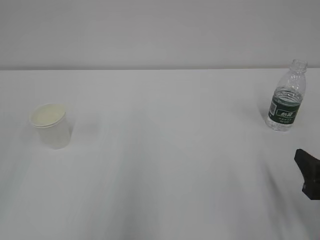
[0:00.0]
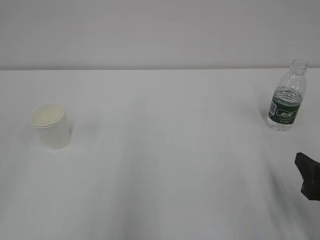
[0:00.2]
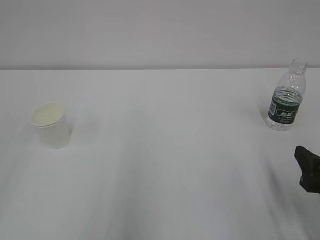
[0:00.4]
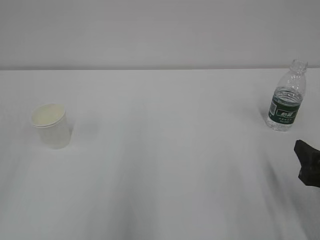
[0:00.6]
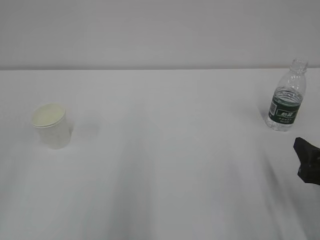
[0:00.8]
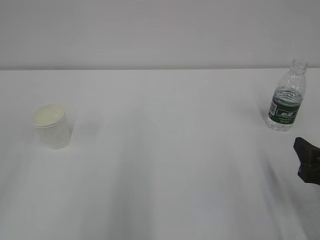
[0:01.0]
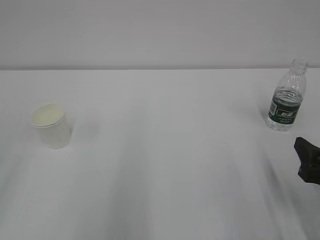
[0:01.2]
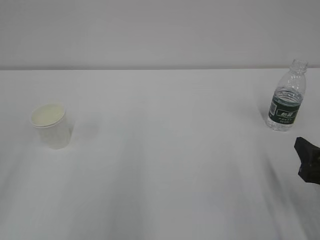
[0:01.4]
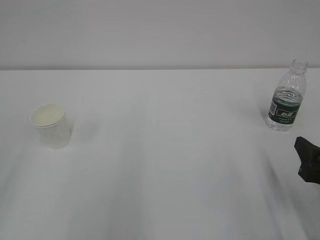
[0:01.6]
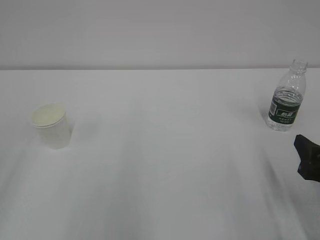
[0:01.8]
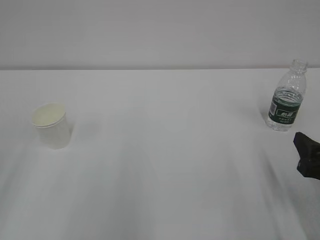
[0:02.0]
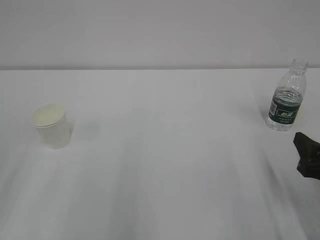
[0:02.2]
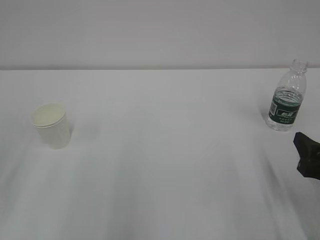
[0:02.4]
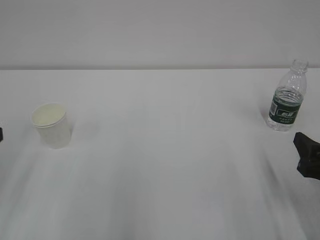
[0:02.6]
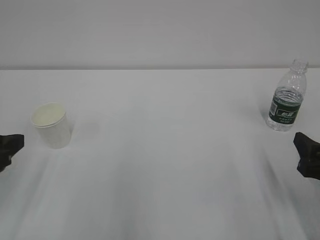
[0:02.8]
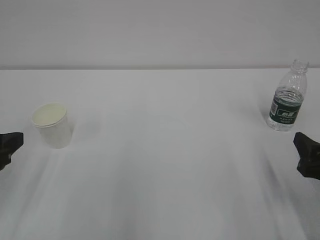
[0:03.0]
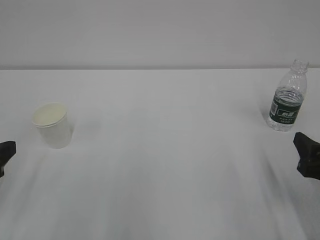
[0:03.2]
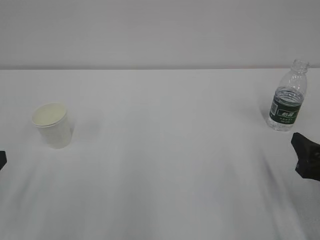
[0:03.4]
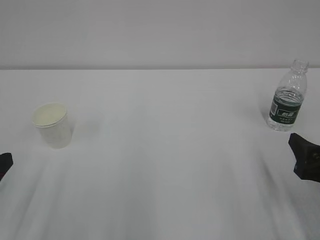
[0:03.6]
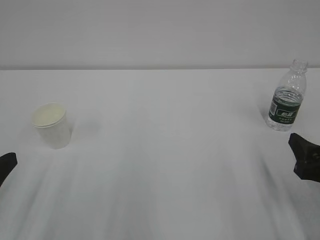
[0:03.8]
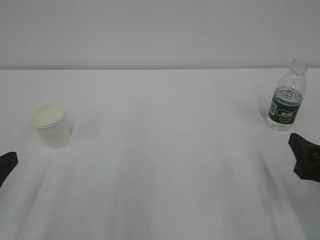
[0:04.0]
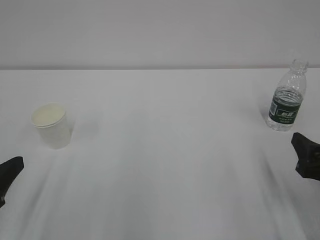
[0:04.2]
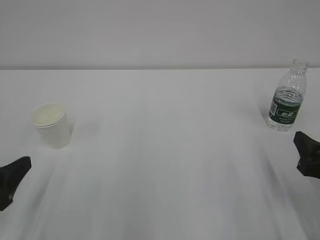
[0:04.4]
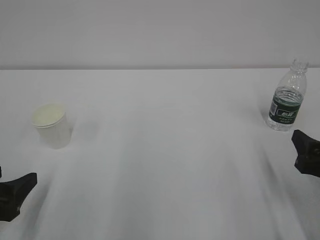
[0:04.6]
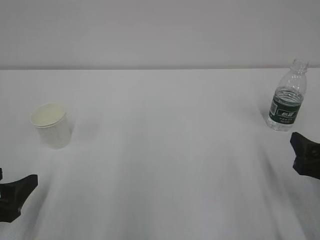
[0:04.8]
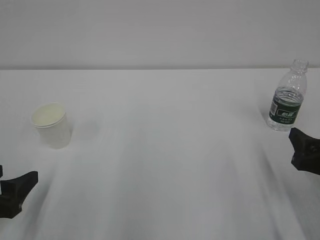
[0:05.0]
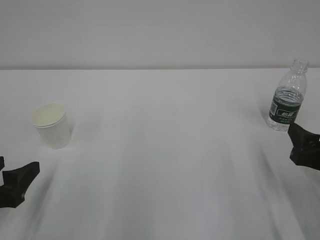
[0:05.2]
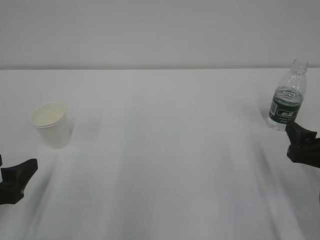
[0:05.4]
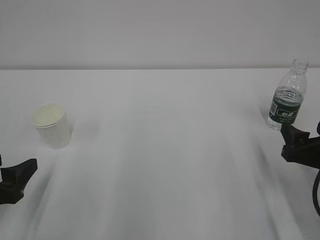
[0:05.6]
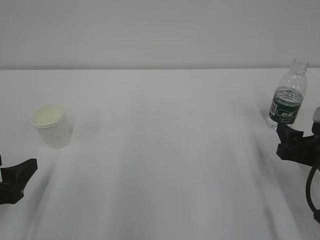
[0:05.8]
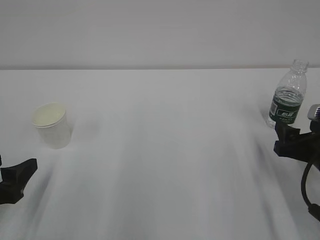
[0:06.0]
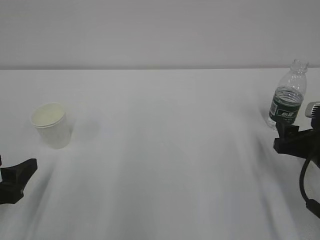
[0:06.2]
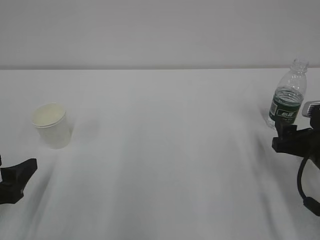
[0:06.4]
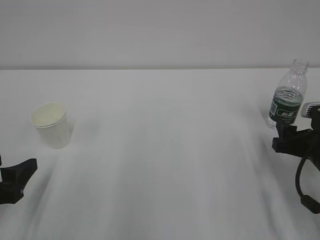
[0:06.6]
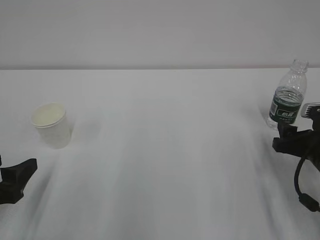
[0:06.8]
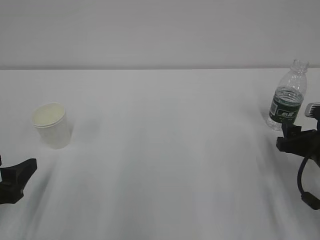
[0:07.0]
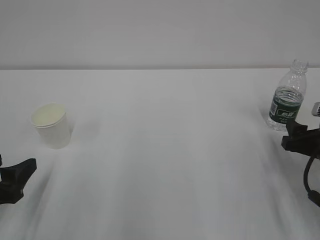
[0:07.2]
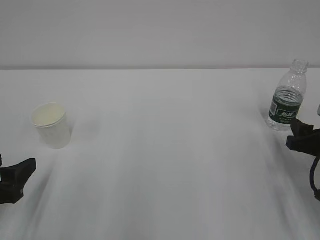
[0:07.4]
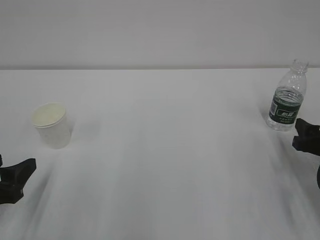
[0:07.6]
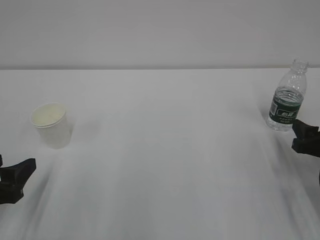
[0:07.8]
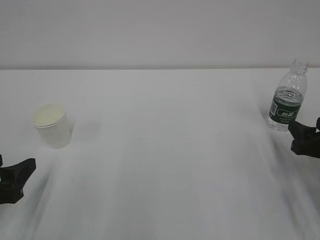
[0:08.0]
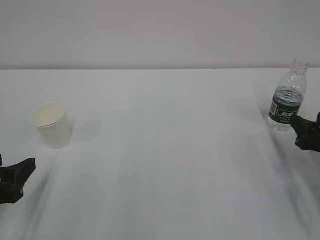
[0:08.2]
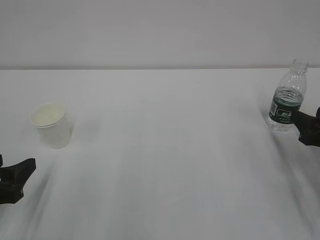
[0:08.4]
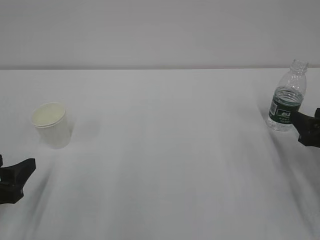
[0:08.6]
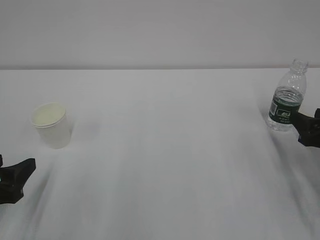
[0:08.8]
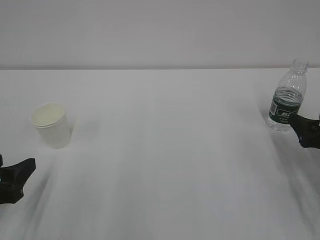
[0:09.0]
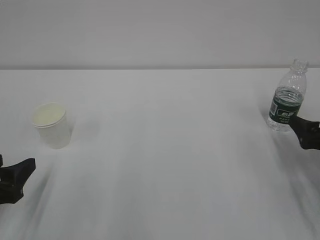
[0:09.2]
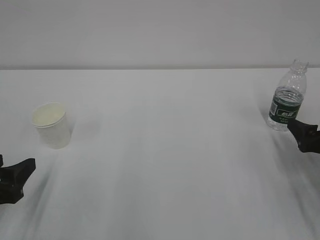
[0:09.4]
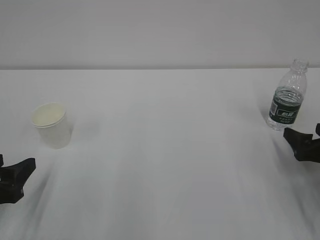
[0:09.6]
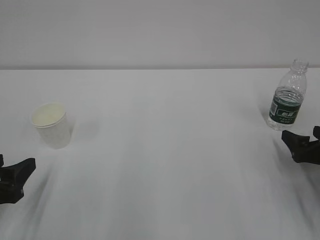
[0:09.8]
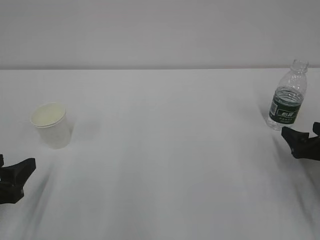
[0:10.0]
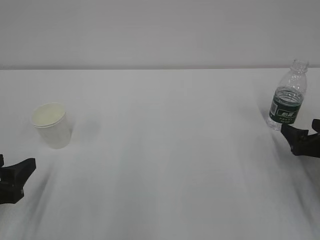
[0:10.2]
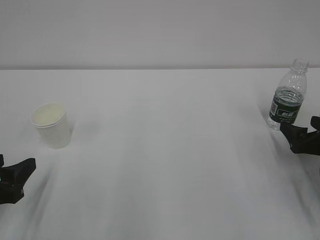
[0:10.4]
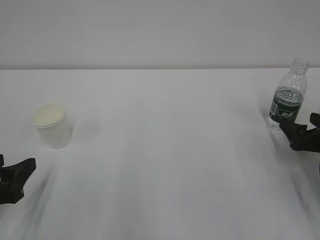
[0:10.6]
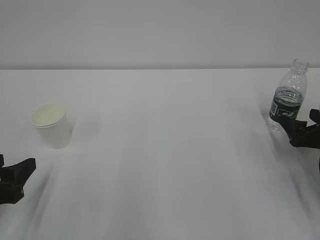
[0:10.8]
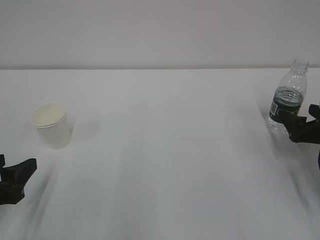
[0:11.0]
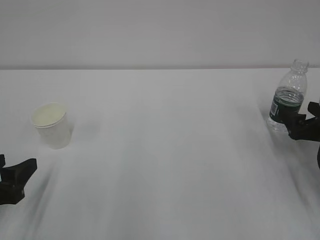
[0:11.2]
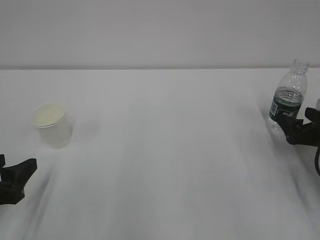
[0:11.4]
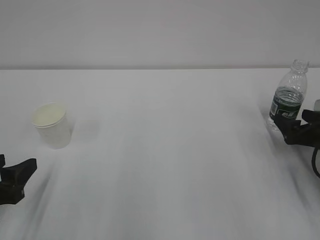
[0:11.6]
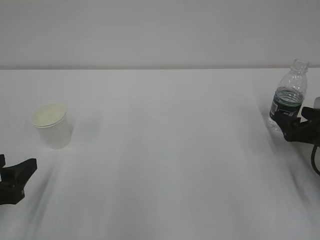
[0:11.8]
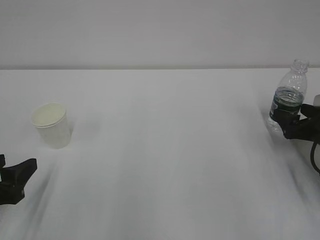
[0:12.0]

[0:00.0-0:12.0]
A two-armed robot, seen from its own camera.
0:01.6 to 0:03.0: The left gripper goes approximately 10 cm forward and downward.
0:03.0 to 0:04.4: The left gripper is displaced downward by some 5 cm.
0:04.4 to 0:06.0: The right gripper moves forward, roughly 5 cm.
0:06.0 to 0:07.6: The right gripper changes place by roughly 5 cm.
0:07.6 to 0:09.0: The right gripper opens.
0:09.0 to 0:10.4: The grippers move only a little.
0:10.4 to 0:12.0: The grippers move only a little.

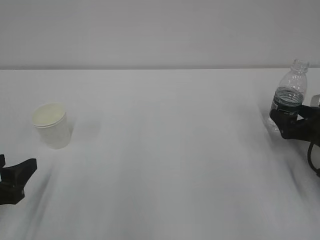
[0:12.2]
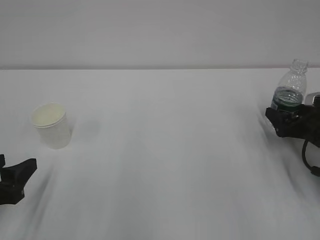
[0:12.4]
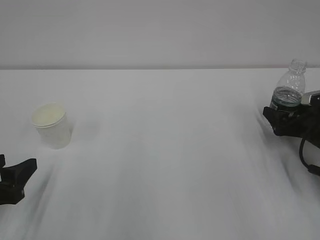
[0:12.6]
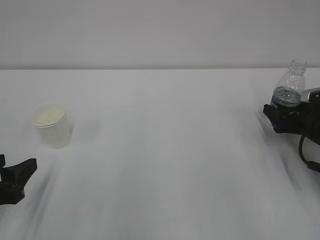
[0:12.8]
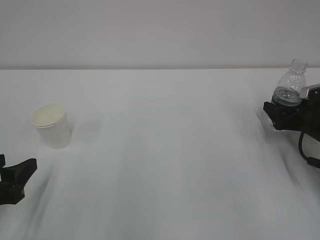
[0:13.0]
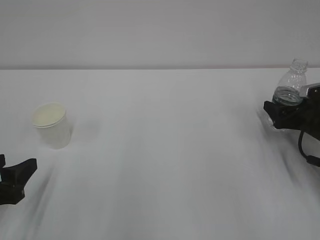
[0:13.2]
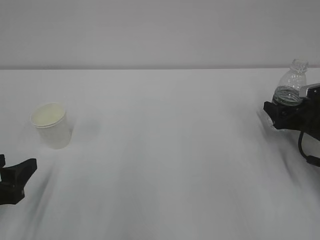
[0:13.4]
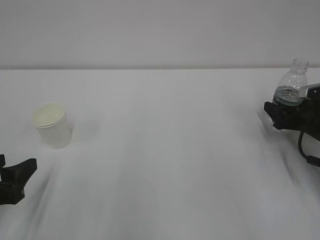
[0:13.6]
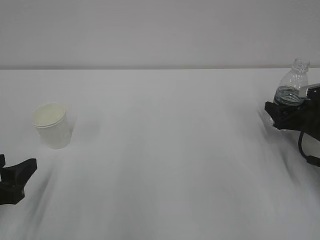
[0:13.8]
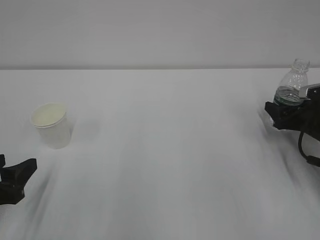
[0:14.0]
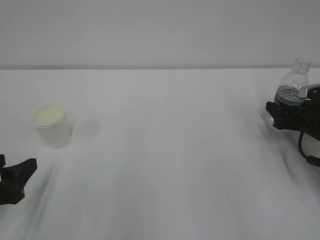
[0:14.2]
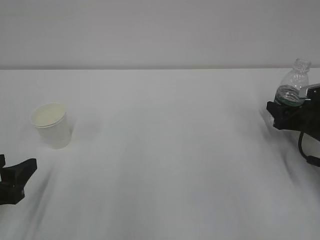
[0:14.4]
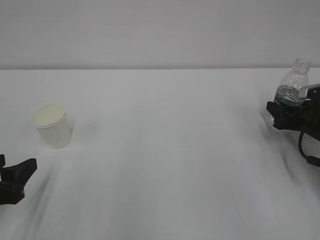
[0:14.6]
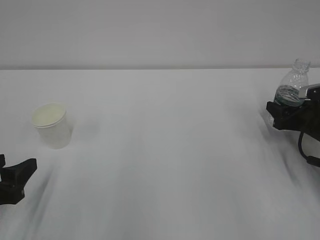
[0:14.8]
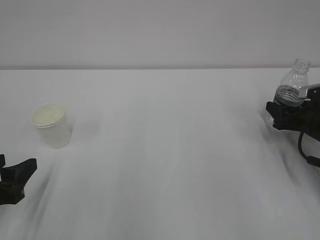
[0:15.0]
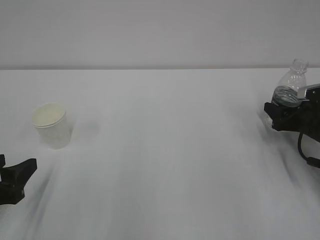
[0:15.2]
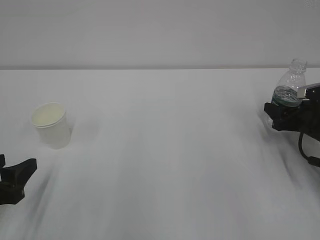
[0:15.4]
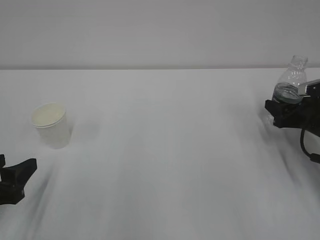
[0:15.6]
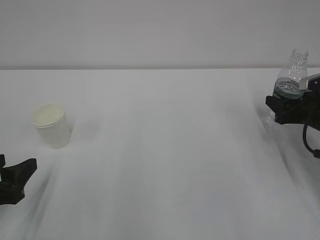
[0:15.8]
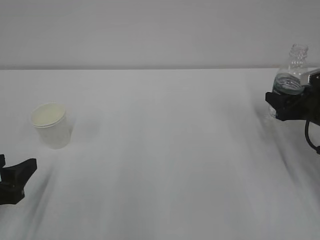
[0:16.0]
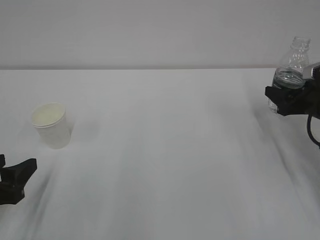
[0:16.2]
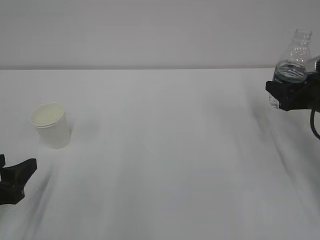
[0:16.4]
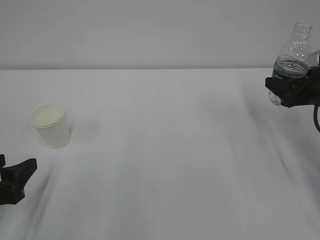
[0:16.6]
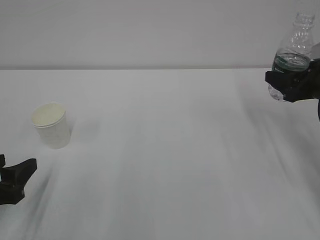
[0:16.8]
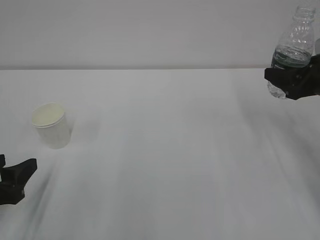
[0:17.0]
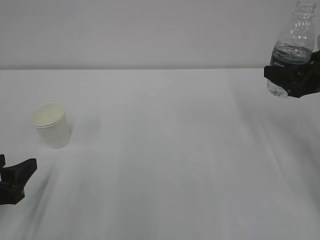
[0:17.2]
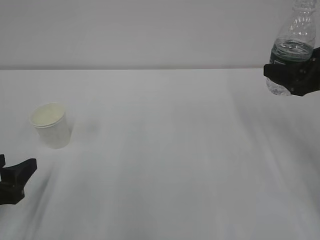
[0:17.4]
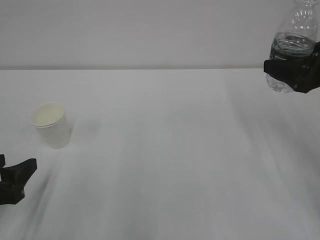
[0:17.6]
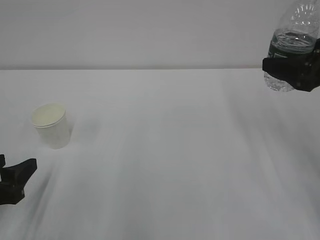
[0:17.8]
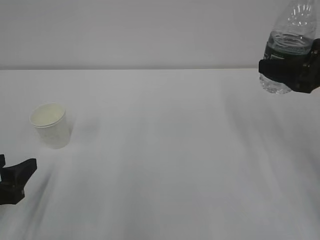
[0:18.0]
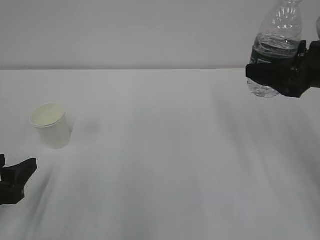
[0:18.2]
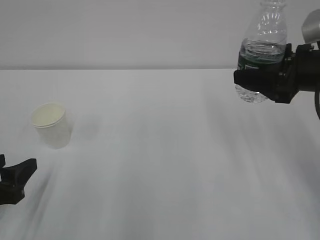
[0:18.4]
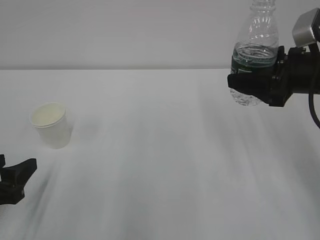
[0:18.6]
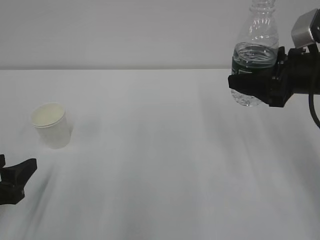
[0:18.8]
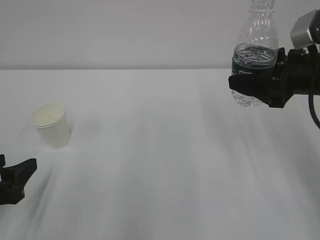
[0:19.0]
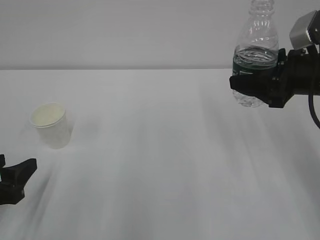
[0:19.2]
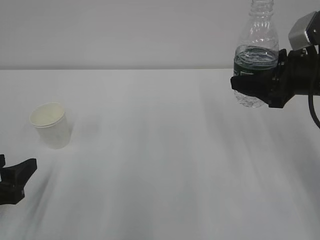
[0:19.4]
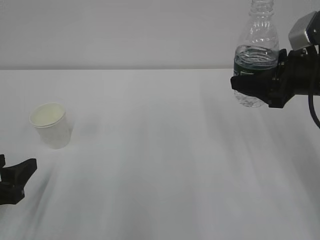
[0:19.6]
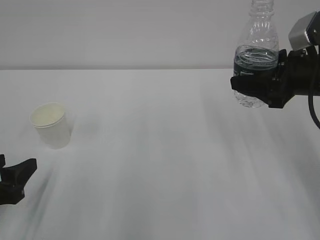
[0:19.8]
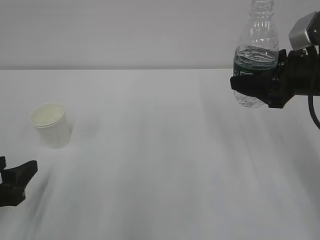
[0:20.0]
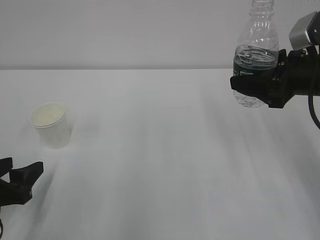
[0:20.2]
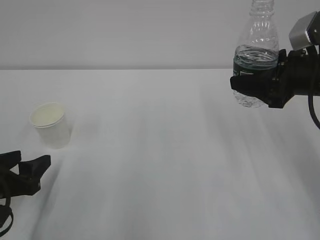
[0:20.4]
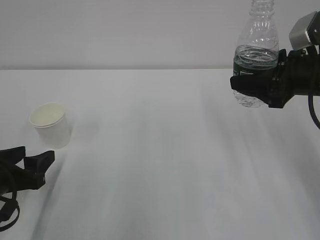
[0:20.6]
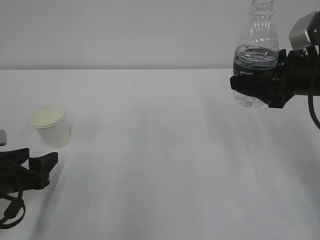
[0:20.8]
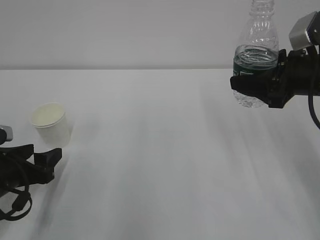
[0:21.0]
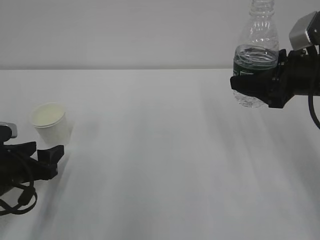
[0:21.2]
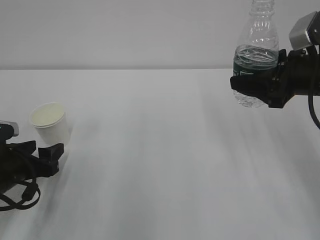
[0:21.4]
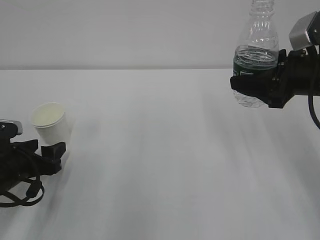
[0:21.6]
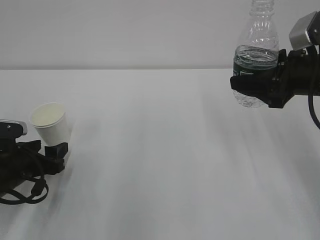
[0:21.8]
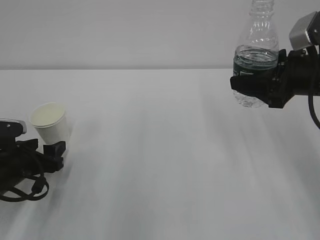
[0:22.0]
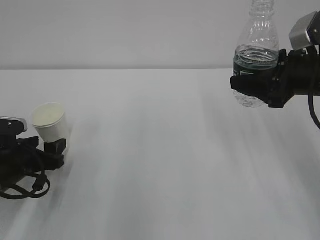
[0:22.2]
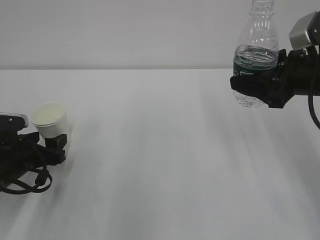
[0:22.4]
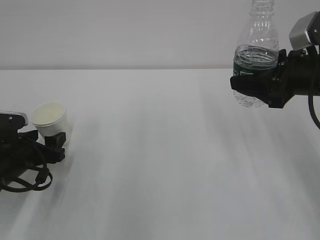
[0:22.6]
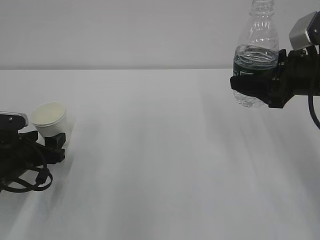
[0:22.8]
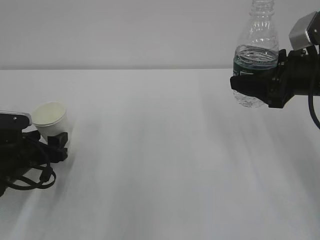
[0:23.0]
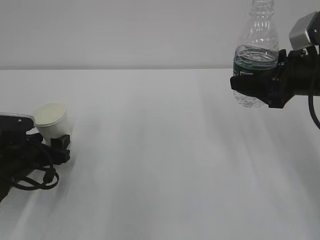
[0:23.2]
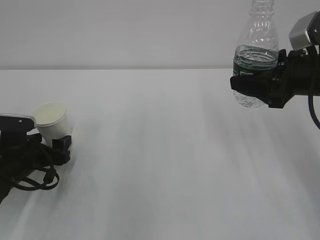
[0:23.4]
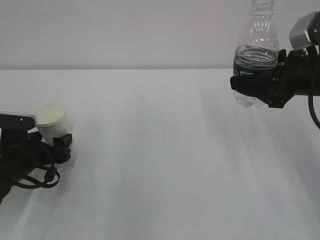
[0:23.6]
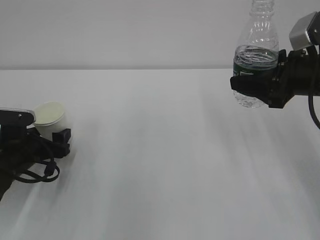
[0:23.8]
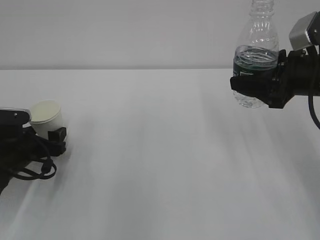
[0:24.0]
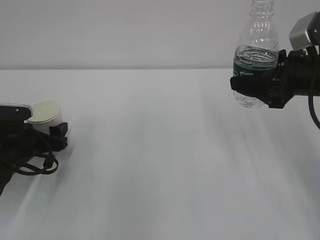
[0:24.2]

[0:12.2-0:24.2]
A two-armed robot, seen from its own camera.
0:12.2 to 0:13.8: The grippers make only small movements.
0:15.2 to 0:16.6: The right gripper is displaced upward by approximately 10 cm.
0:16.6 to 0:18.2: The right gripper is displaced upward and to the left by some 10 cm.
0:18.2 to 0:19.8: The grippers stay close to where they were, moving slightly.
0:19.8 to 0:21.2: The left gripper is displaced forward by roughly 5 cm.
0:21.2 to 0:22.6: The grippers make only small movements.
0:22.6 to 0:24.2: The grippers move only a little.
